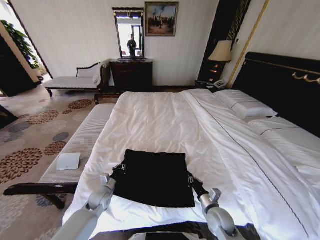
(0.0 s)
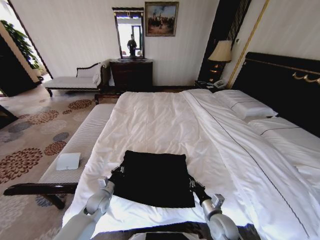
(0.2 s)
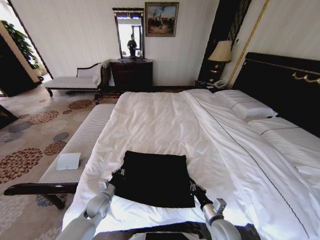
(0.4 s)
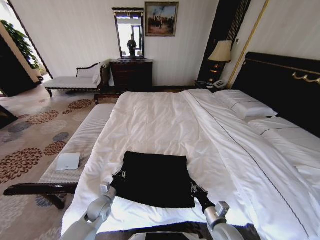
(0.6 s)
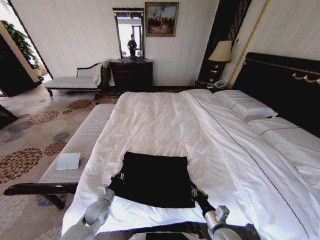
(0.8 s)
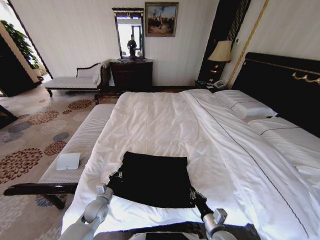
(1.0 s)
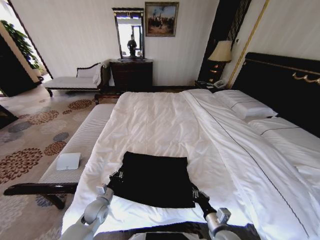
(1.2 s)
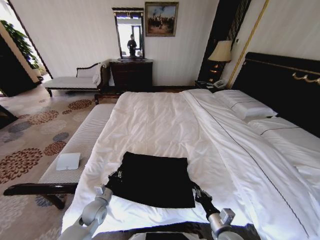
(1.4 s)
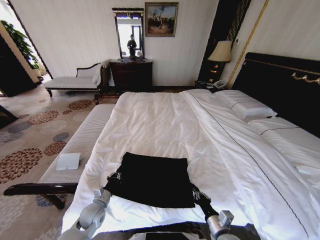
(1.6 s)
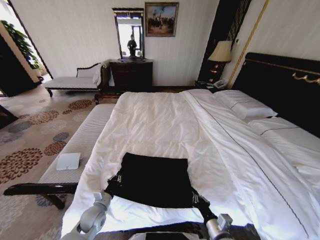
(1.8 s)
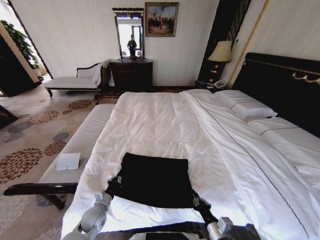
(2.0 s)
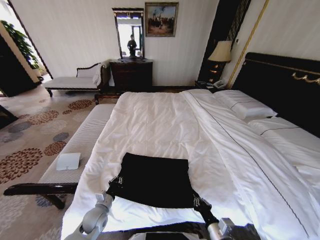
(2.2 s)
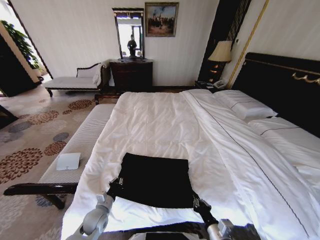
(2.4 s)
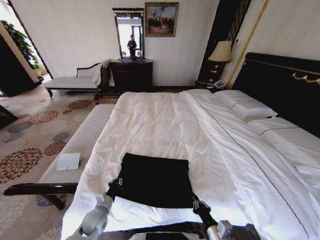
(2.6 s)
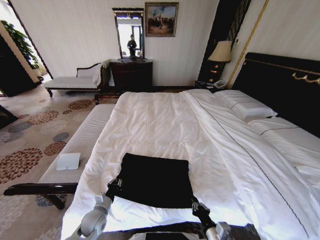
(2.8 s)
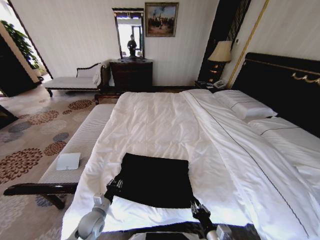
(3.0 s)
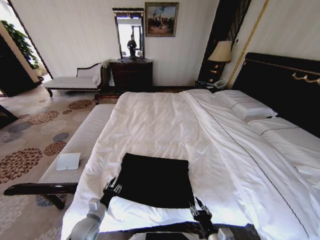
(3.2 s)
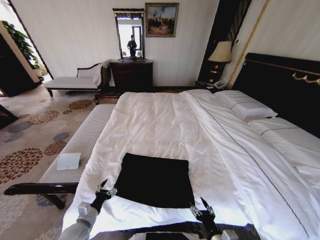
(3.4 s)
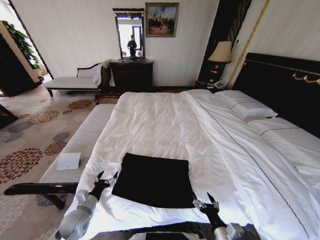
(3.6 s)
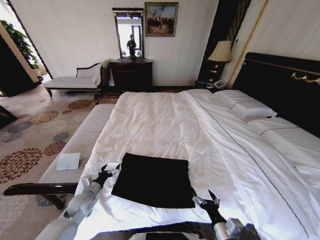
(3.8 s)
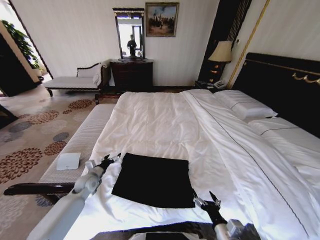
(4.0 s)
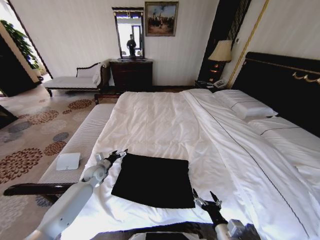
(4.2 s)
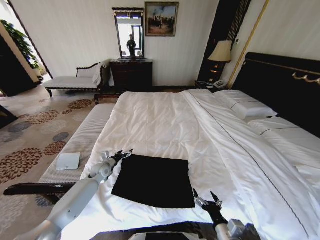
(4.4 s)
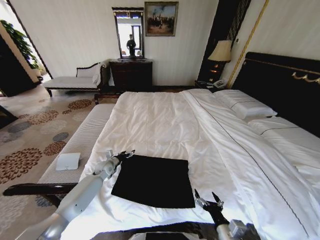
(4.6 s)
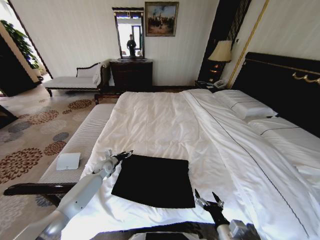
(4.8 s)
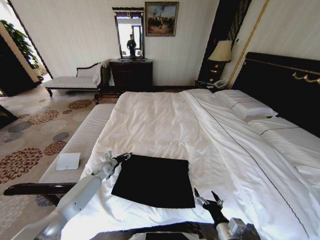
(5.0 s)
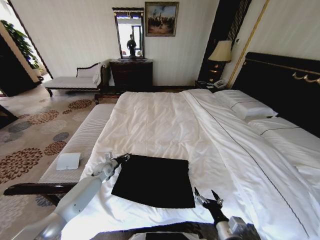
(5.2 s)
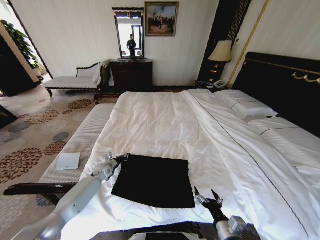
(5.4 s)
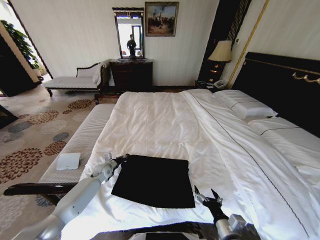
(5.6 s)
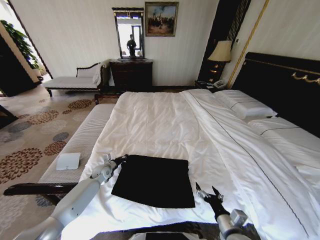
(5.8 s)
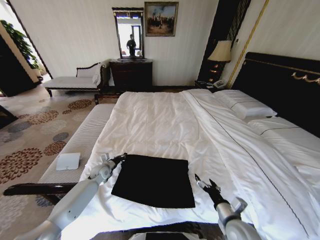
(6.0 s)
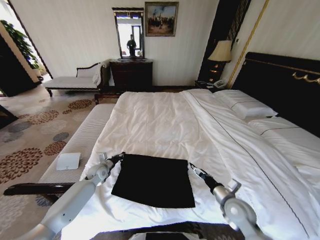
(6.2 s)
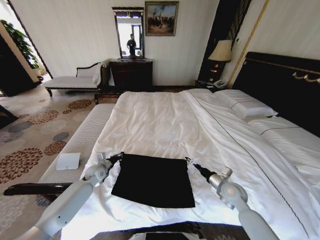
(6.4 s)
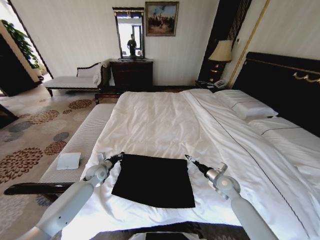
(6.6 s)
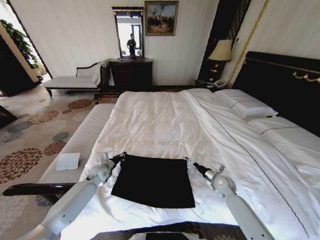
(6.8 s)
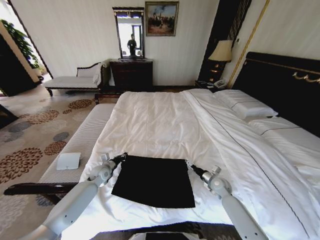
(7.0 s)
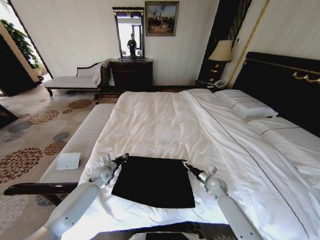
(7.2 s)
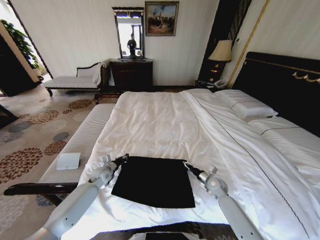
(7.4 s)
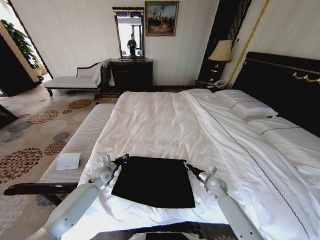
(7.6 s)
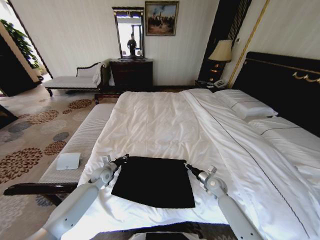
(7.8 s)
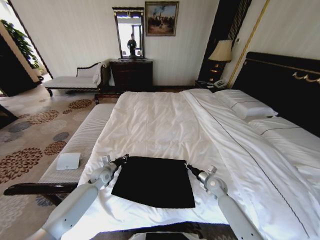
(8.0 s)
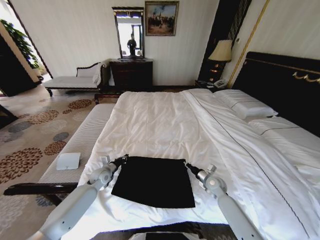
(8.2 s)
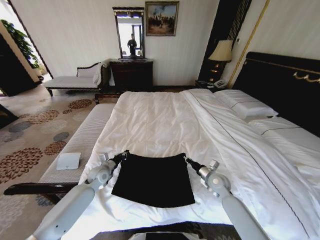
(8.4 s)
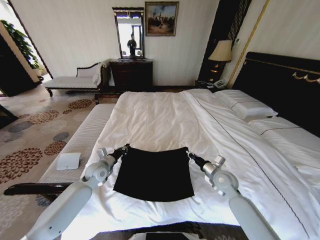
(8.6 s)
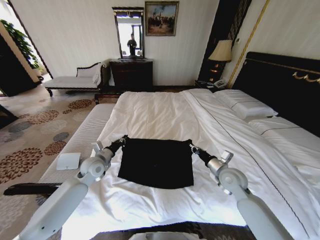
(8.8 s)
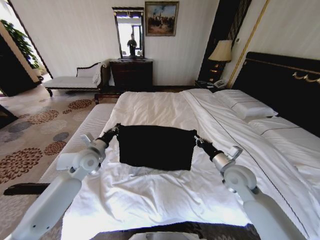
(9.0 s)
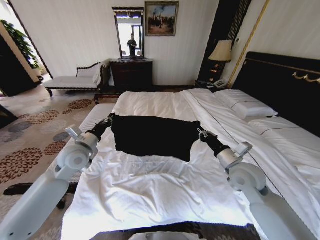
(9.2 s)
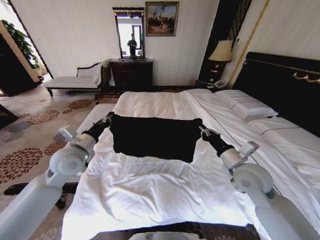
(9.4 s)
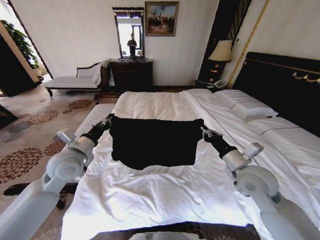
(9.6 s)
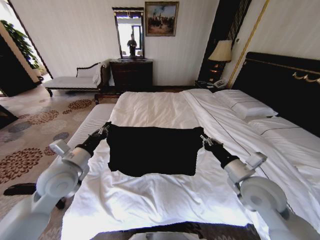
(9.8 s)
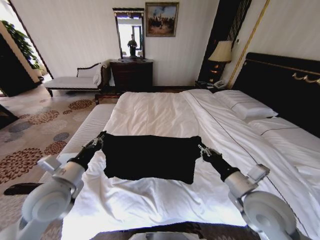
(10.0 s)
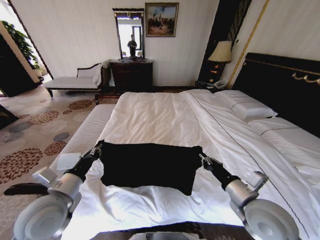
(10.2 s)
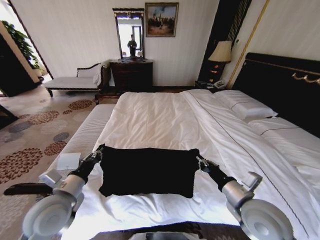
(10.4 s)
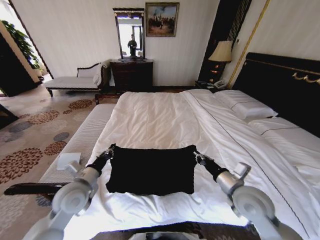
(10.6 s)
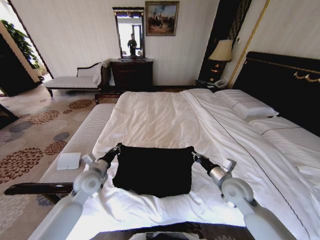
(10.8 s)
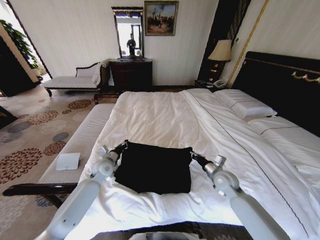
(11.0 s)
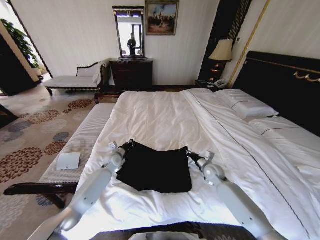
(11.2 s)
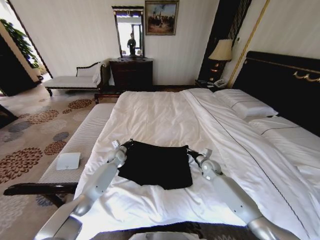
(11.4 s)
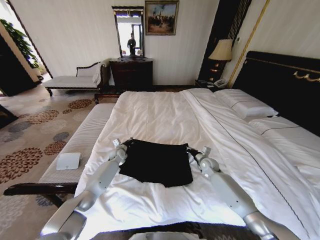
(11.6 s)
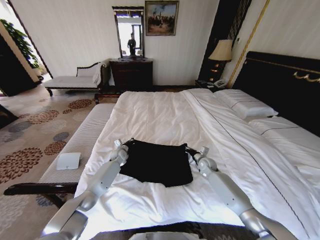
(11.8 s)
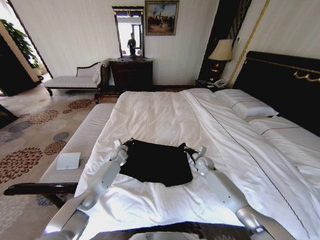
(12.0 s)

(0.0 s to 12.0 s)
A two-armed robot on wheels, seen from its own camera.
Task of the whole recording: Fold the clothes on the bed.
0.0 s - 1.6 s: The grippers both shift backward by roughly 5 cm.
1.6 s - 3.0 s: The right gripper changes place by about 5 cm.
3.0 s - 4.4 s: The right gripper opens; the left gripper moves forward, some 20 cm, and opens its fingers.
4.4 s - 6.0 s: The right gripper moves forward, roughly 5 cm; the left gripper closes its fingers.
6.0 s - 7.6 s: The right gripper is displaced forward and downward by approximately 20 cm, and closes.
7.6 s - 9.0 s: Both grippers travel together upward, approximately 20 cm. The right gripper closes.
9.0 s - 10.4 s: Both grippers move backward, roughly 15 cm.
10.4 s - 12.0 s: The grippers both shift forward and downward by some 40 cm.

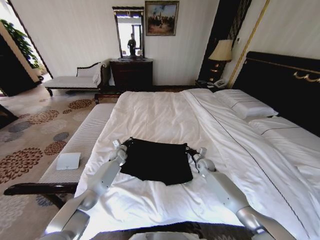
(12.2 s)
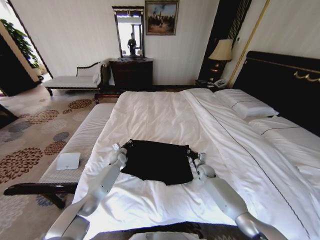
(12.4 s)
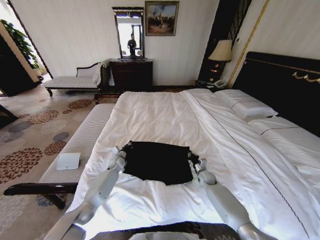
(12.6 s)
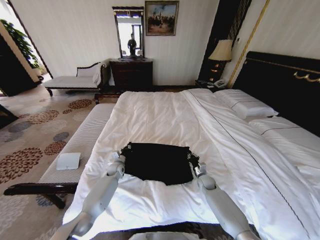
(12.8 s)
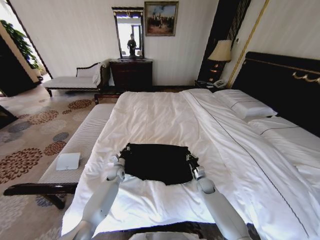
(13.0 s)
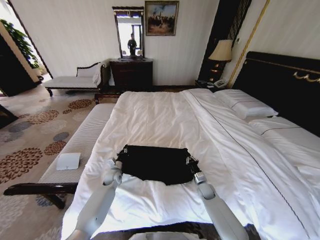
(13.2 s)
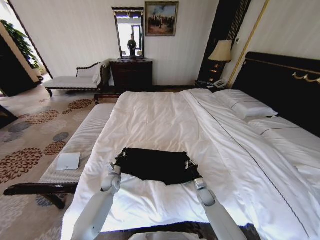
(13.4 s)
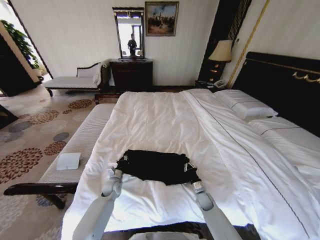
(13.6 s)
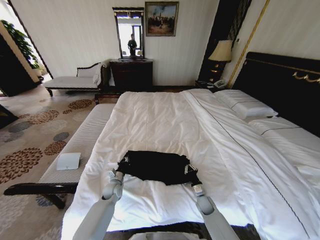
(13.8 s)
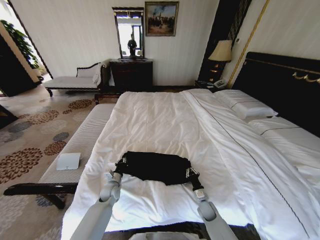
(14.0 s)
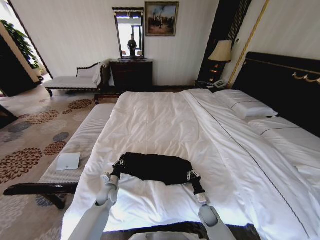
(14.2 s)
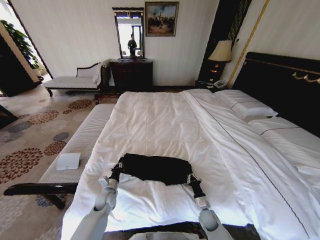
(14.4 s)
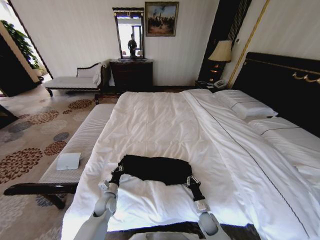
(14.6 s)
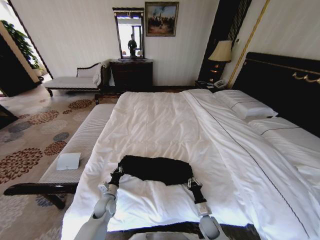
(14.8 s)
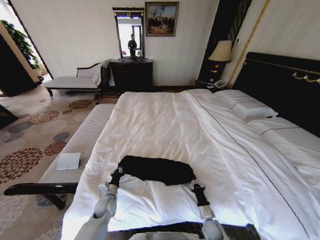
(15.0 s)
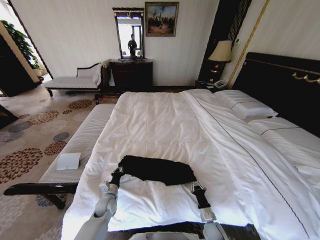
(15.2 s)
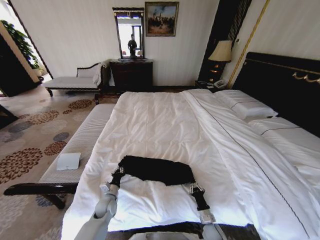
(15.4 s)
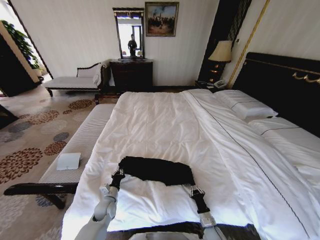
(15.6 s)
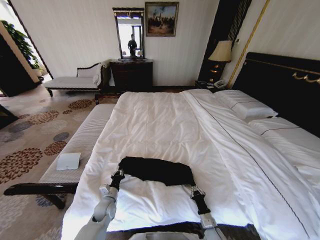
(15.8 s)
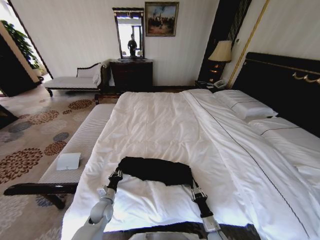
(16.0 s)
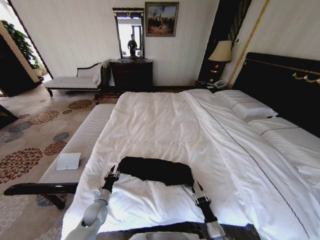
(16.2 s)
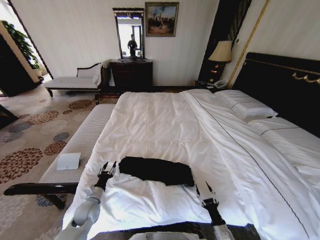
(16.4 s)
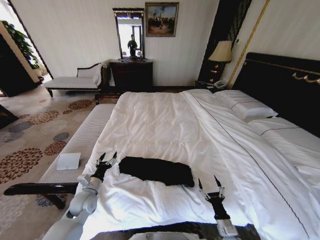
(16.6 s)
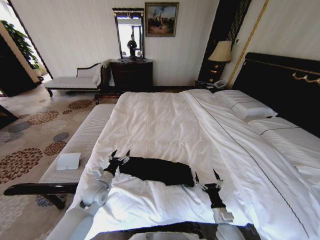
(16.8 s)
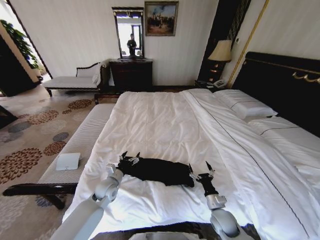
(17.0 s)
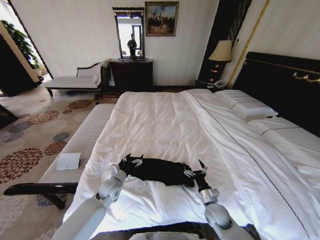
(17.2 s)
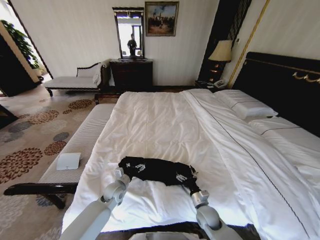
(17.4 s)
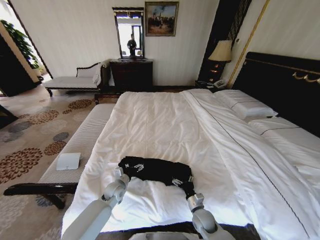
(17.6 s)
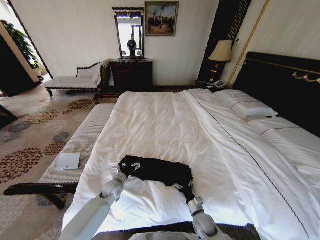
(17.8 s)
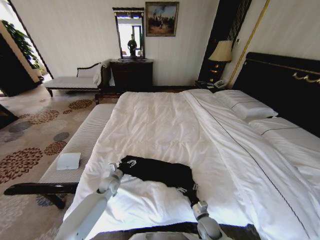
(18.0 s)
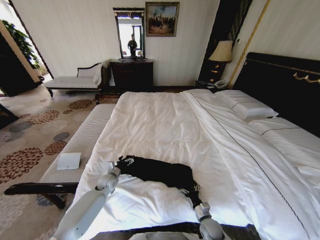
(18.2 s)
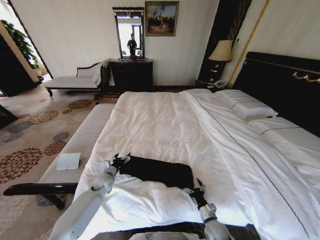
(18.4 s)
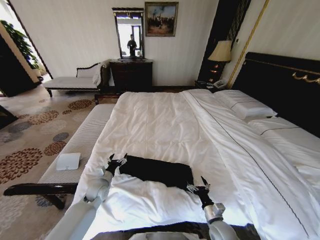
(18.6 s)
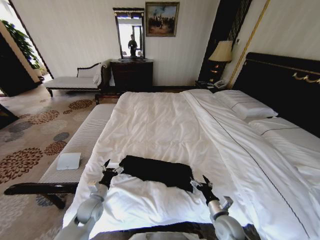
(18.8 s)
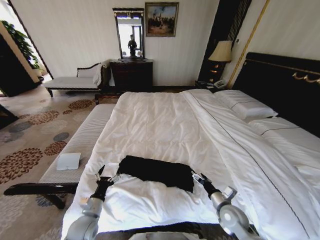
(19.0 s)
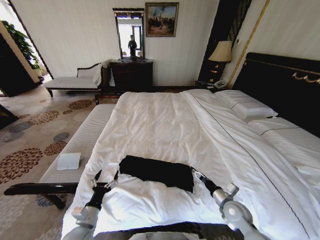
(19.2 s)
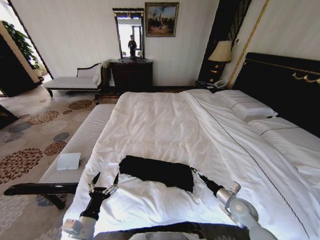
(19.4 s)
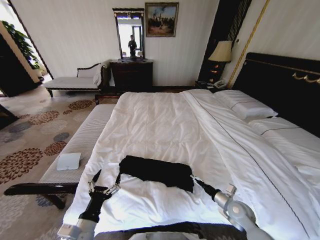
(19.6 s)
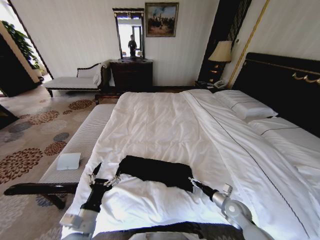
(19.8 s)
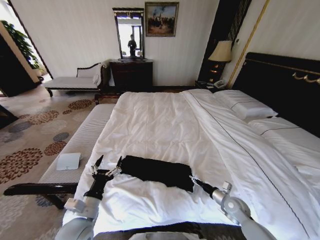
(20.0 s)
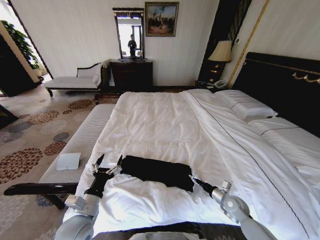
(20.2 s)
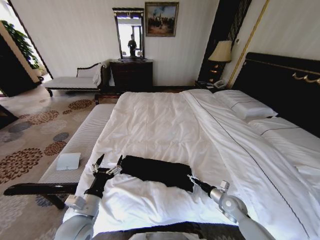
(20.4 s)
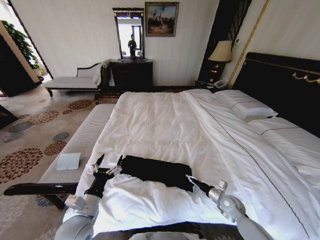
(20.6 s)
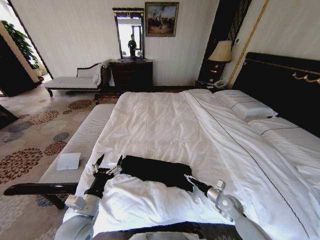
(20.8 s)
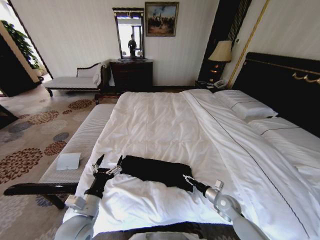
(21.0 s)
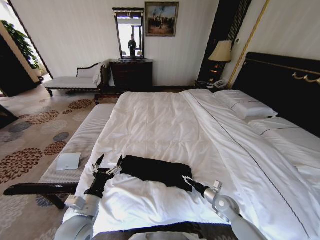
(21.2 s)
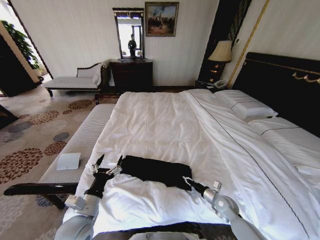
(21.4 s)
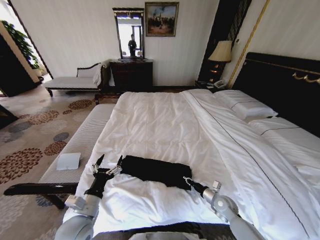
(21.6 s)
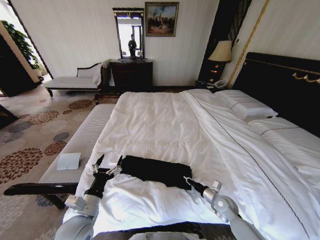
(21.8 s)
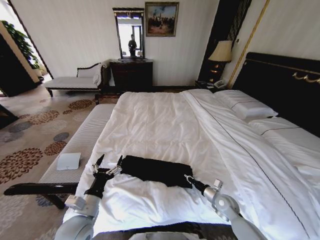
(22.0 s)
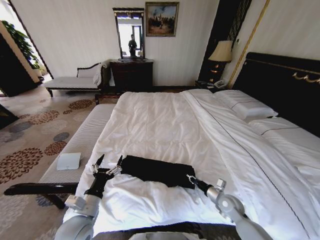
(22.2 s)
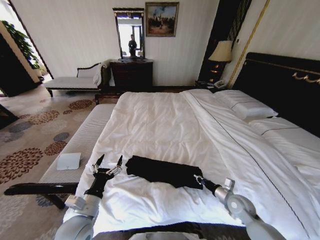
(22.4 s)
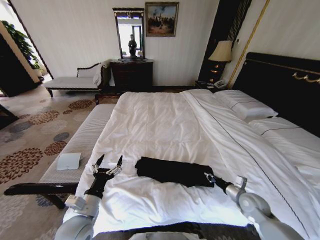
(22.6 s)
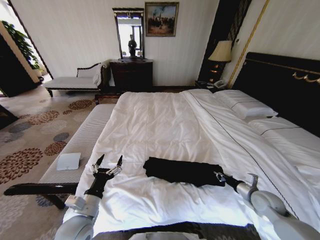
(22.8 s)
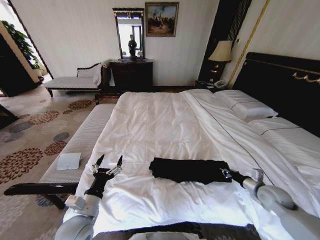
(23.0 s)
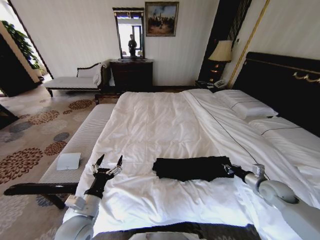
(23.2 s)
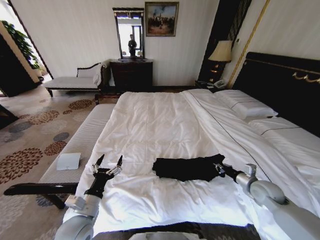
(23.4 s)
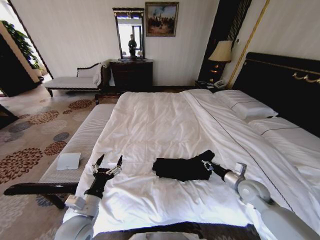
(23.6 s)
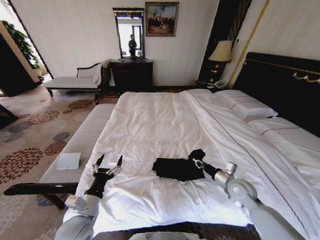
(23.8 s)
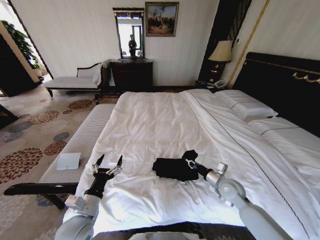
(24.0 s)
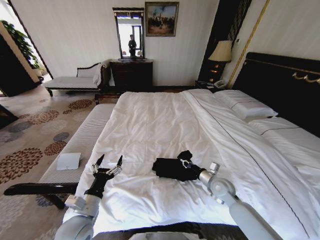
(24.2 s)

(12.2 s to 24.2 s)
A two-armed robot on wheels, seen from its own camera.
Task of the whole recording: Fold the clothes on the bed.
12.2 s - 13.8 s: The right gripper is displaced backward and downward by approximately 20 cm; the left gripper is displaced backward by approximately 20 cm.
13.8 s - 15.2 s: The left gripper is displaced backward by some 5 cm, while the right gripper moves backward, about 10 cm.
15.2 s - 16.6 s: The right gripper is displaced backward and upward by some 10 cm, and opens its fingers; the left gripper is displaced upward and to the left by some 10 cm, and opens its fingers.
16.6 s - 18.2 s: The right gripper goes some 10 cm forward and to the left; the left gripper moves forward and downward, about 15 cm.
18.2 s - 19.8 s: The right gripper heads upward, to the right and forward, covering some 15 cm, while the left gripper heads backward and upward, covering approximately 30 cm.
19.8 s - 21.2 s: The right gripper closes its fingers.
21.2 s - 22.6 s: The right gripper travels upward and to the right by roughly 10 cm, and closes.
22.6 s - 24.2 s: The right gripper heads to the left and forward, covering approximately 15 cm.
